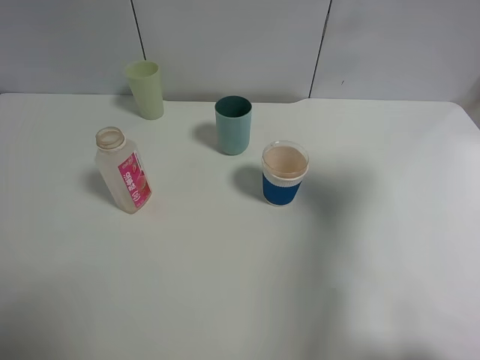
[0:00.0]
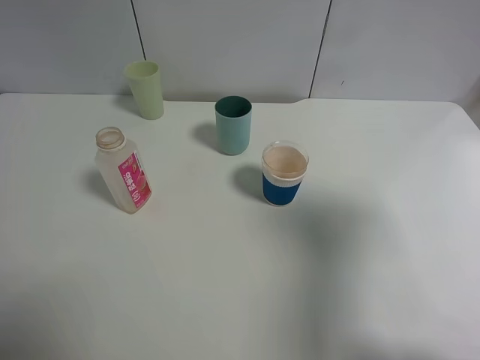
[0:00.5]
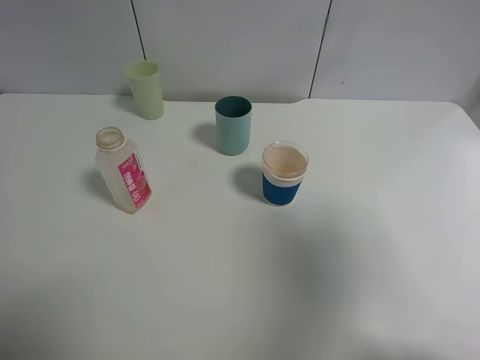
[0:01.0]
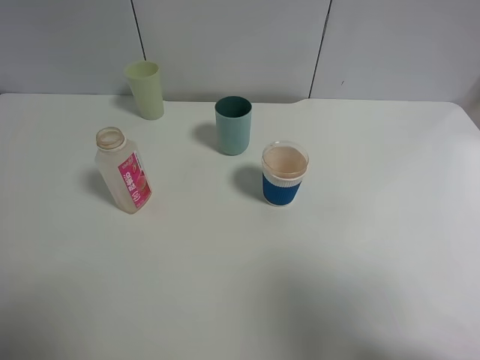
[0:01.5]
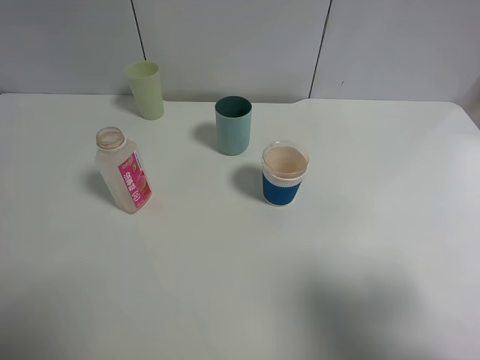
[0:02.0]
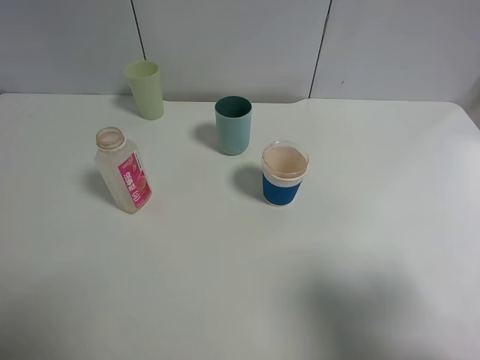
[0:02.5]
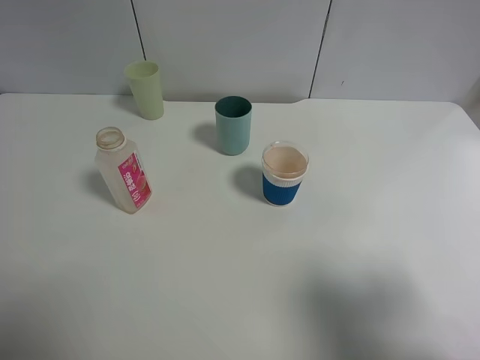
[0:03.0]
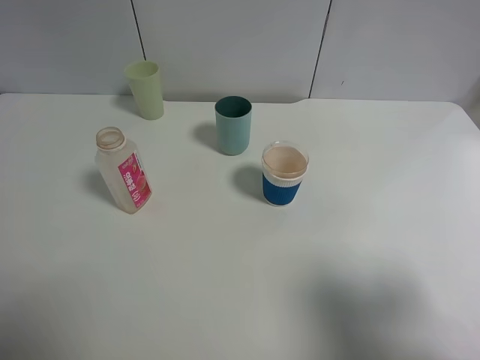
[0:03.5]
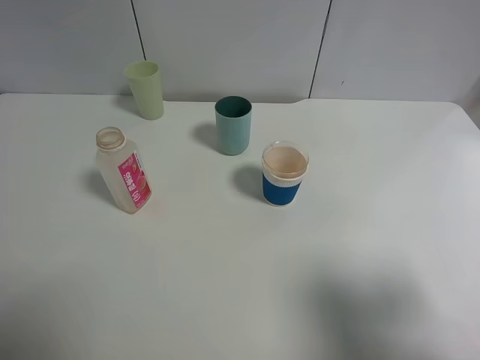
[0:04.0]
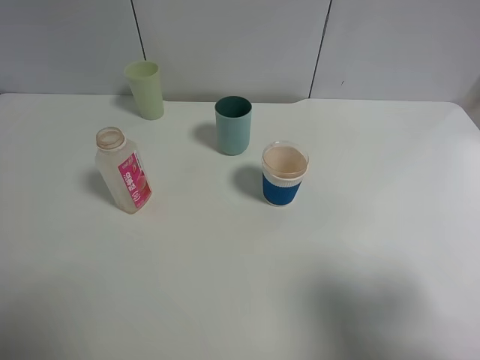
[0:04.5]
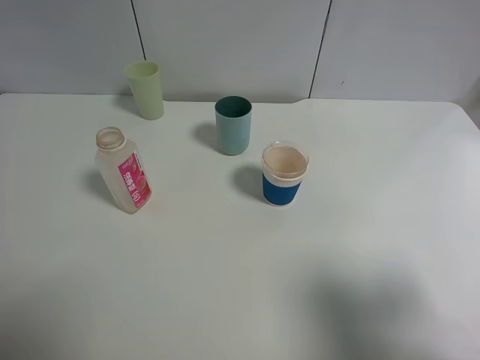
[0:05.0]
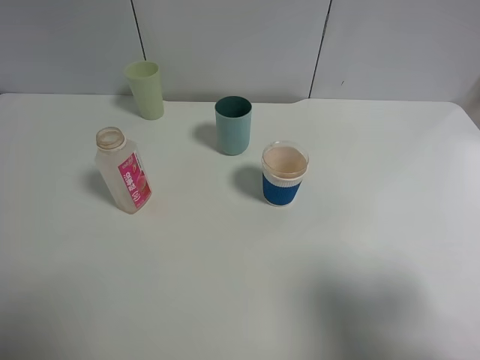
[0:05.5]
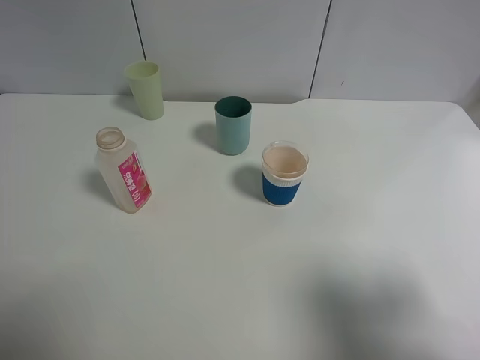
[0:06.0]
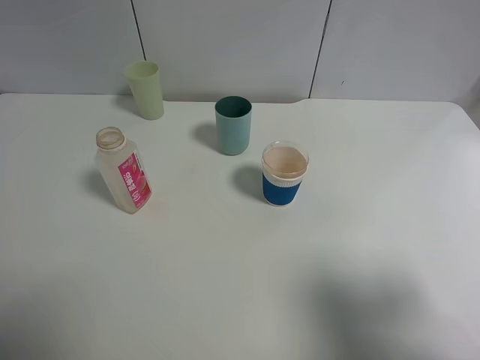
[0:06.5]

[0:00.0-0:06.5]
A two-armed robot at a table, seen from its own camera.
Task of the whole recording: use a clamp to hold the bottle of the drink, pour the beverage into a random cup, then clamp the cup containing the drink and pour the drink into another random cup.
0.0 to 2.0 s: The right gripper is displaced backward by about 15 cm.
2.0 to 6.5 s: Both grippers stay about where they are.

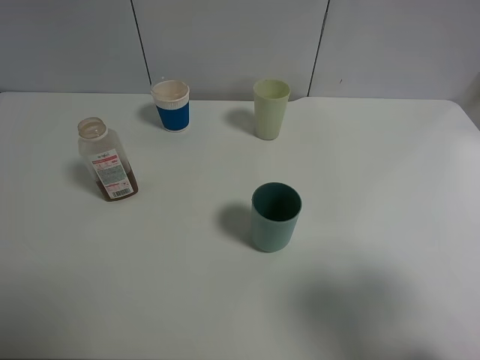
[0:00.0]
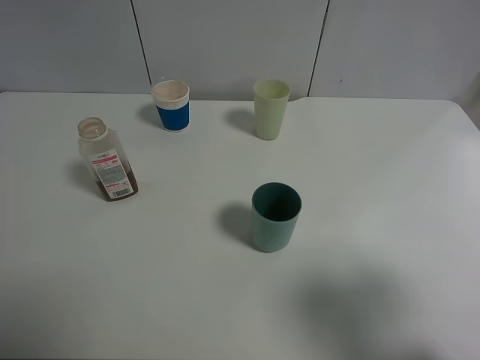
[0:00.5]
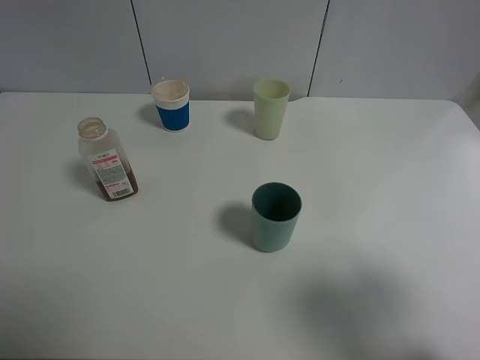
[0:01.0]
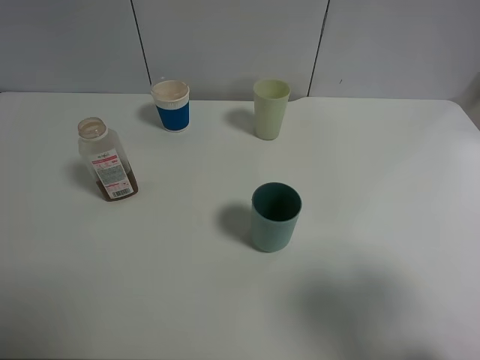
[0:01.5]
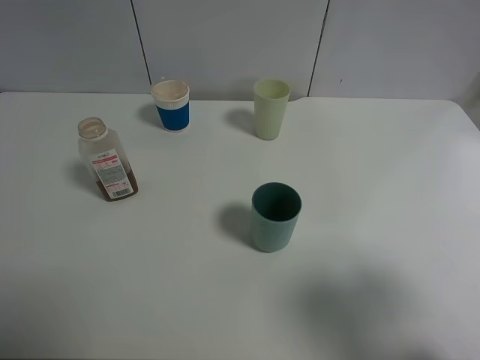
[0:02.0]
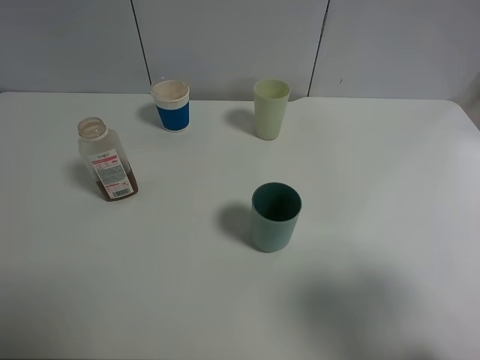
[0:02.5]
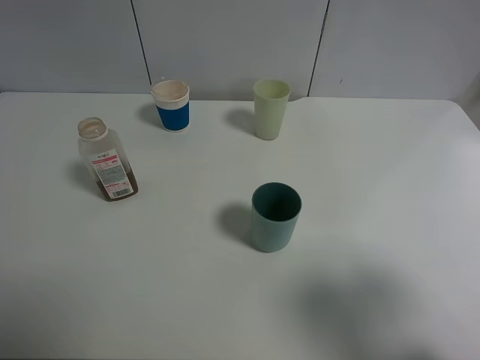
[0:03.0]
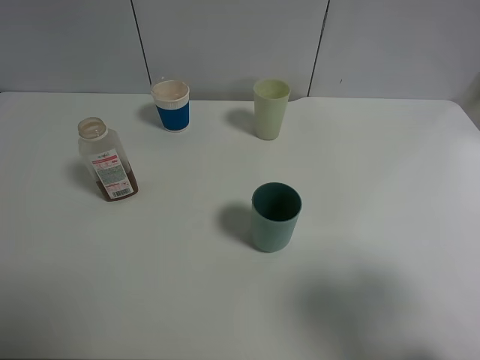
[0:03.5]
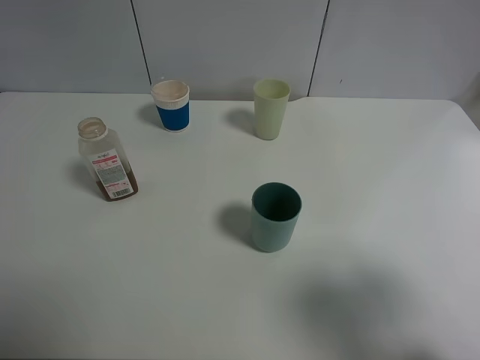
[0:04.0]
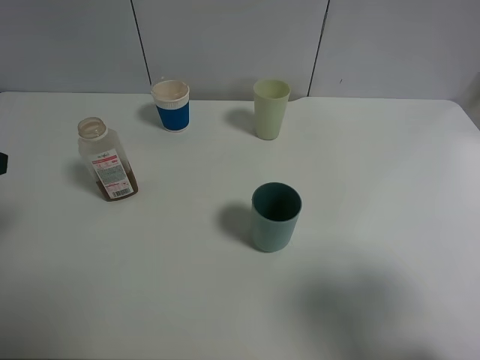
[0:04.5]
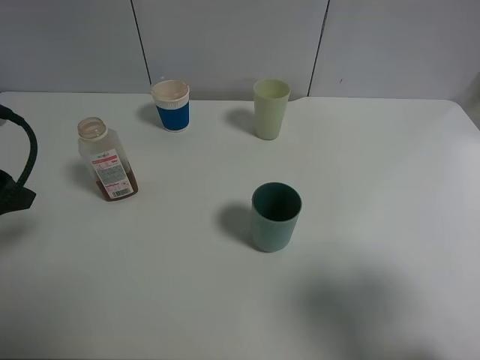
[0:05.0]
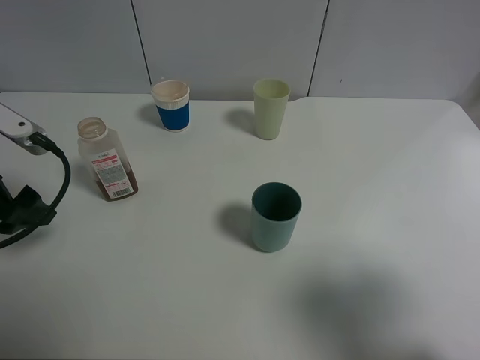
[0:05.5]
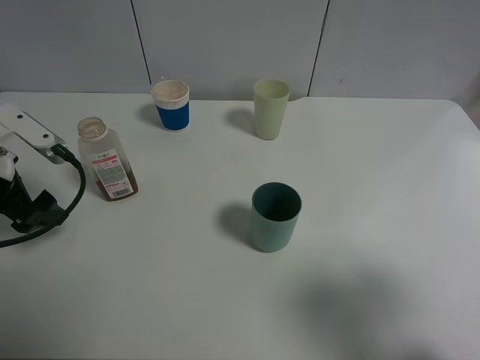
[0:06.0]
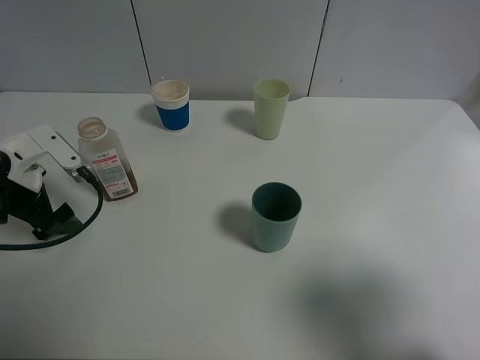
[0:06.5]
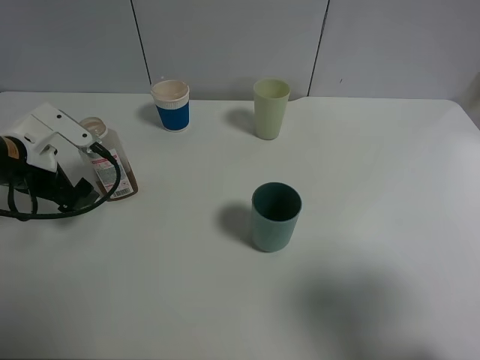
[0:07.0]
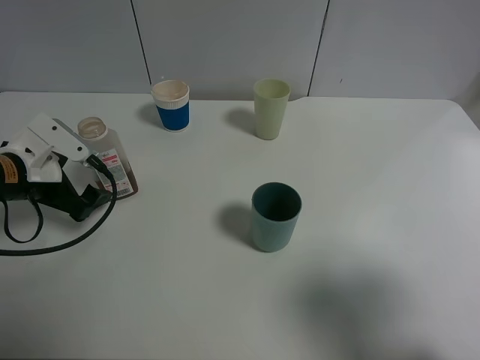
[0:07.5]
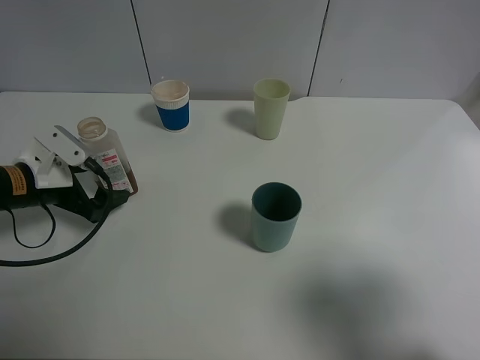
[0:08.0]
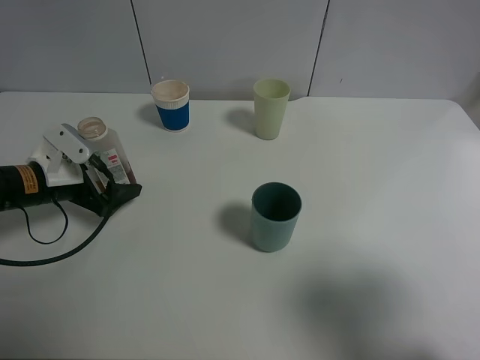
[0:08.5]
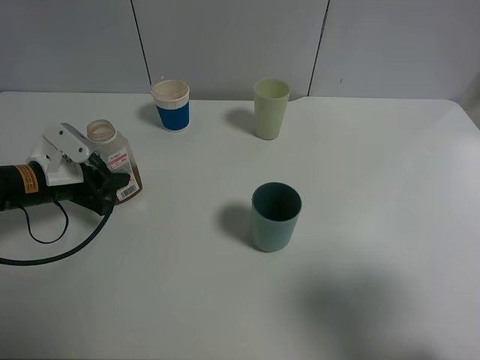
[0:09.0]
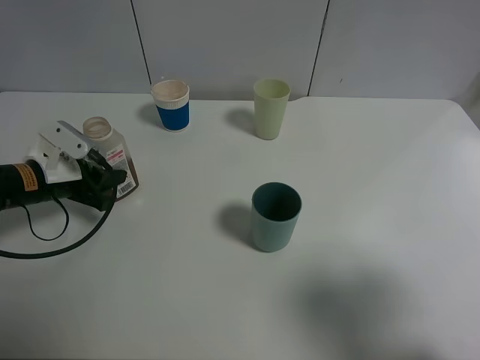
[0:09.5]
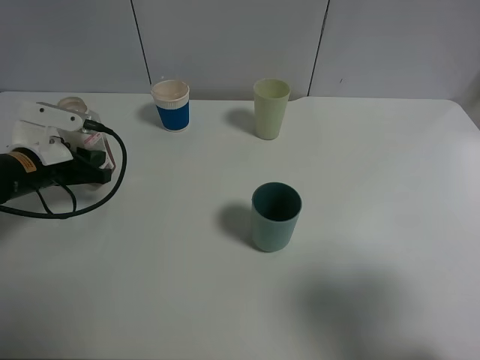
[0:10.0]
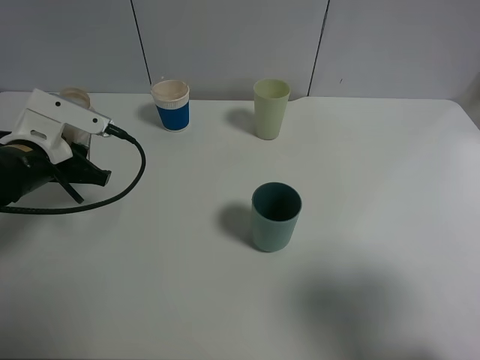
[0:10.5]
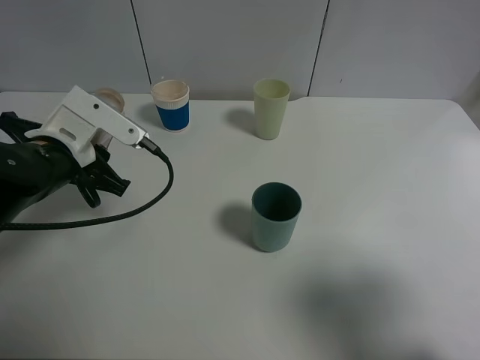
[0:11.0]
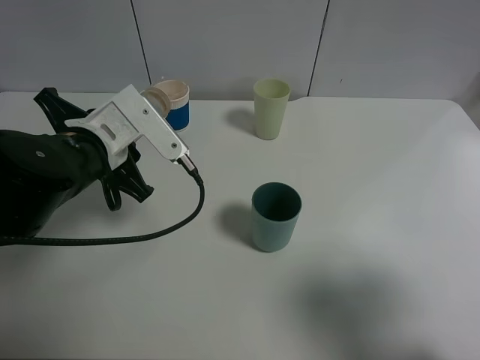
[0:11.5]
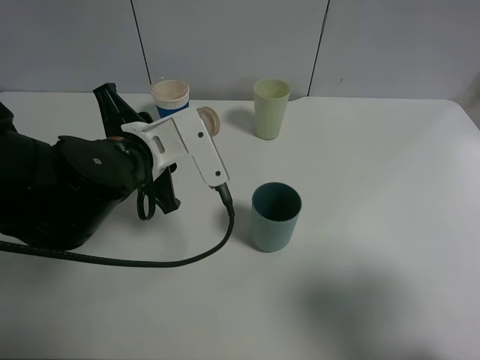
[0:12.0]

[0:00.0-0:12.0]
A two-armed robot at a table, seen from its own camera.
Task of the whole recording: use a clamp to hold the bottle of the drink, pour the beverage into a random cup, then clamp the cup containing the drink and pour the drink into another random cup.
Step, 0.0 to 10.0 s: Pick up the drink bottle with left gripper.
0.0 to 2.0 s: Both grippers stay about where they are.
4.0 to 6.0 s: The left gripper moves forward and downward, some 20 cm.
6.0 to 8.0 s: The left gripper is displaced downward by about 10 cm.
8.0 to 10.0 s: The left gripper closes.
10.0 to 12.0 s: The left gripper travels to the right by roughly 15 cm.

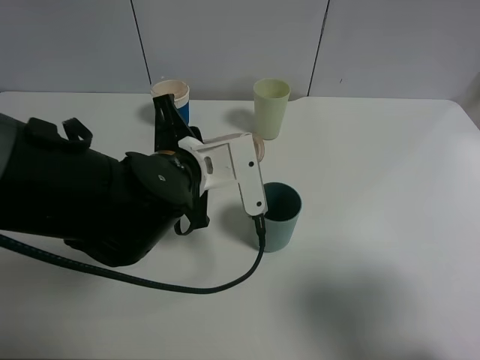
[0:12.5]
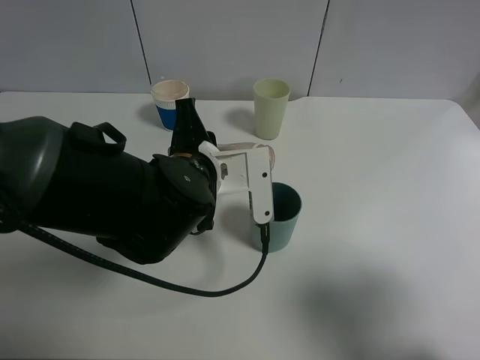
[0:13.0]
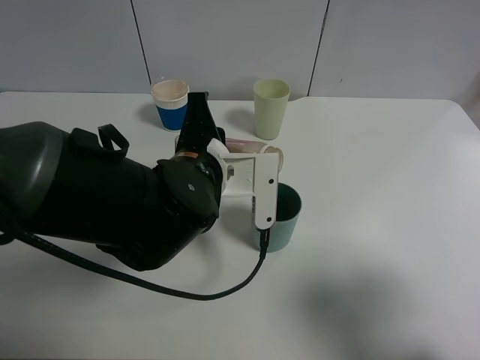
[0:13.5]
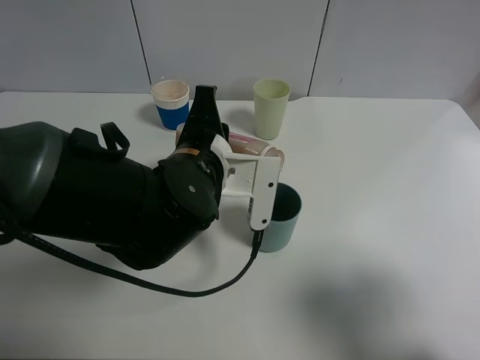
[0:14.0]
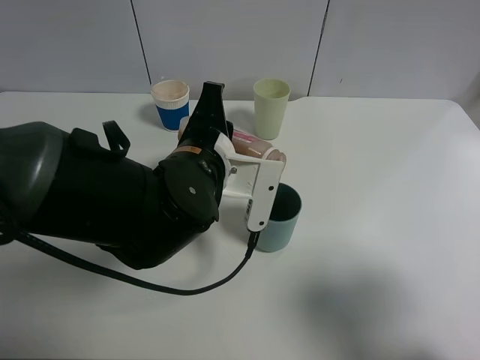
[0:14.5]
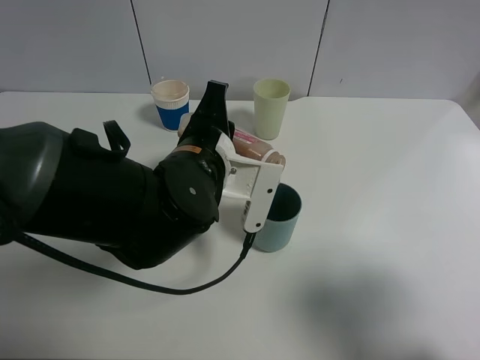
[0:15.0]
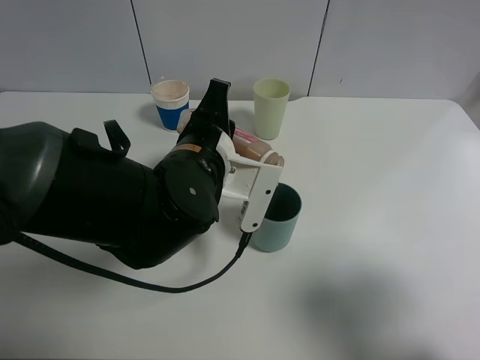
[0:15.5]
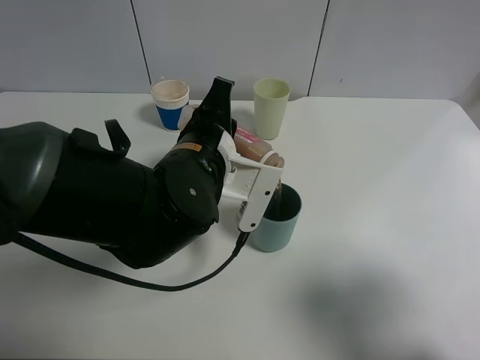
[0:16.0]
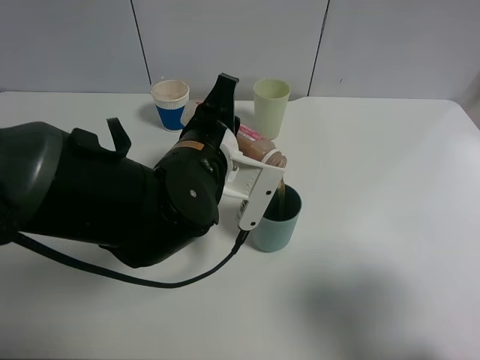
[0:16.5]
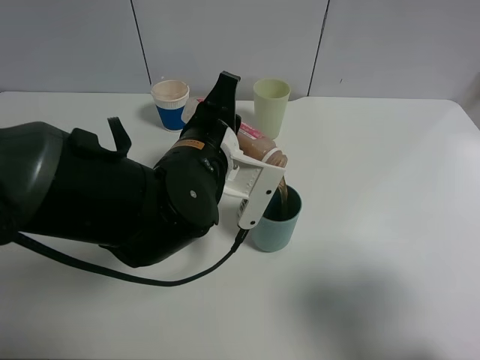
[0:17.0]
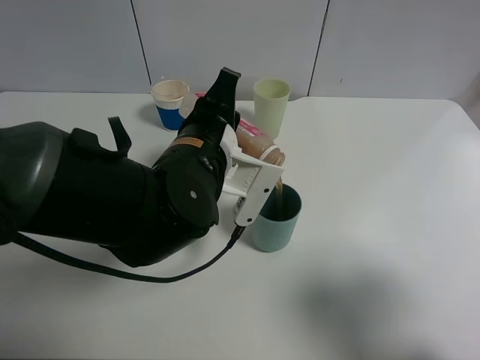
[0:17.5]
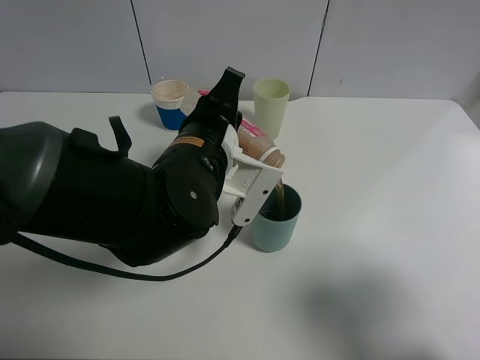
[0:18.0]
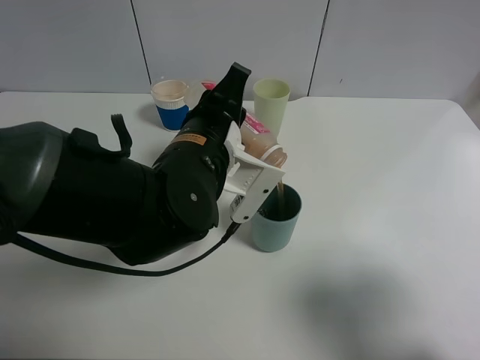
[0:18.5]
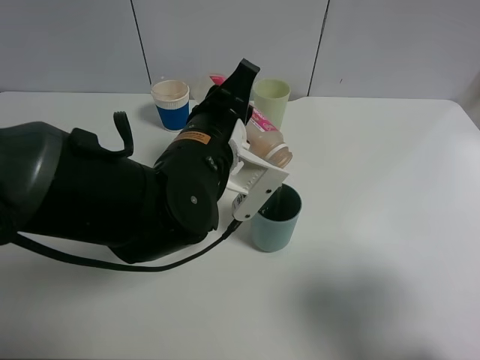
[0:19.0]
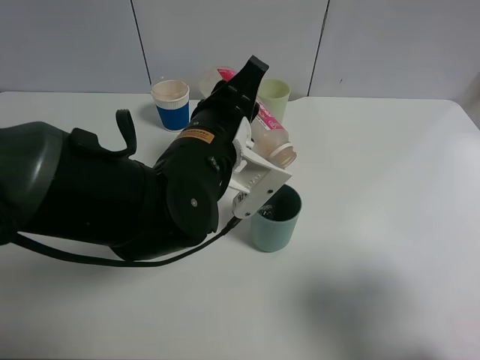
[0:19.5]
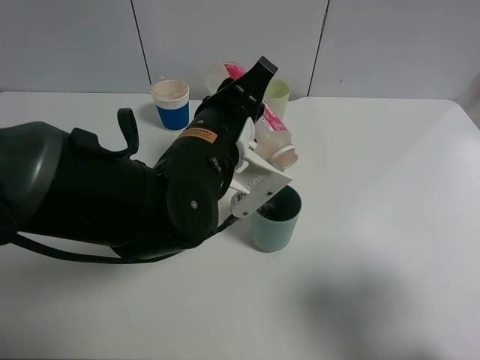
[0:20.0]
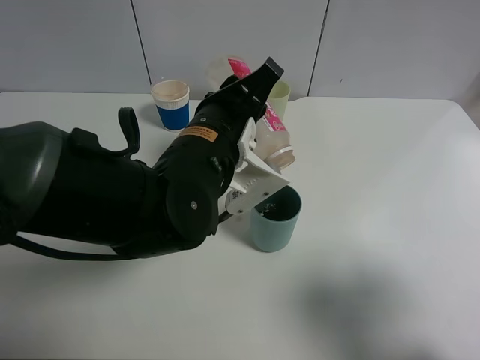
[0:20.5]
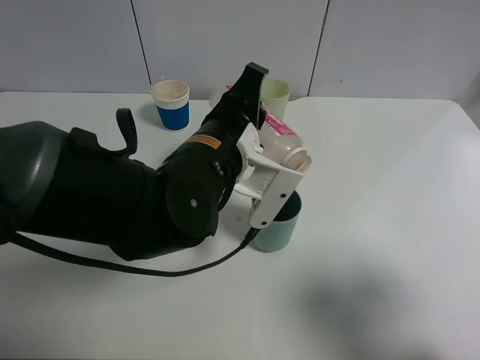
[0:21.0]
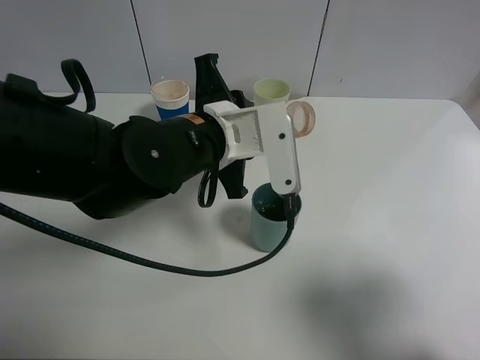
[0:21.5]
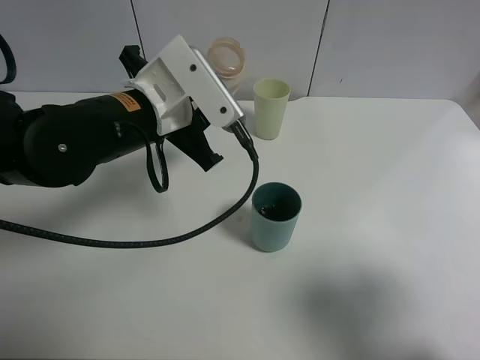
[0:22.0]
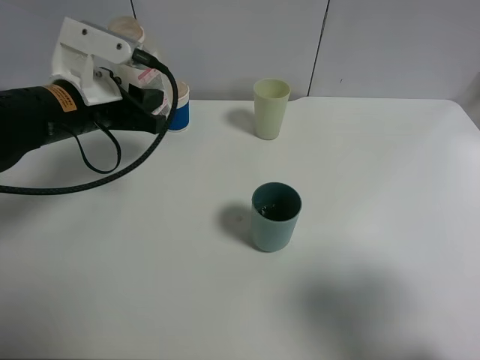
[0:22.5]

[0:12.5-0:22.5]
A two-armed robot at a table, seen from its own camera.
Task of the whole recording: use a clamp to hold the bottle of the drink, pour the beverage into a random cup, then clamp the cup containing the drink and pour the drink into another random cup.
Step, 12.5 to 20.5 s: Pour the drink into the blue plastic cup with left gripper.
14.5 to 18.5 s: The grippers stay close to where they were, moving slightly.
18.5 to 20.5 s: There are only small adjustments of the grippers.
20.5 to 22.5 s: The left gripper shifts some 15 cm to the left.
